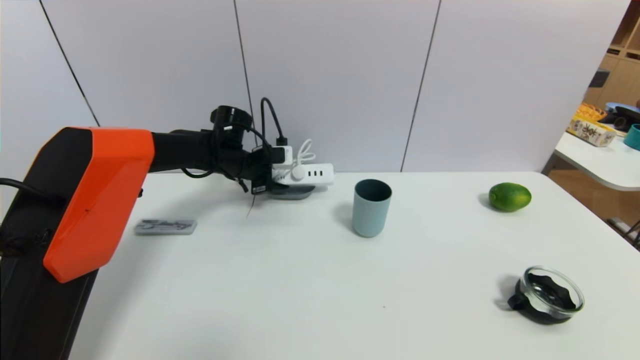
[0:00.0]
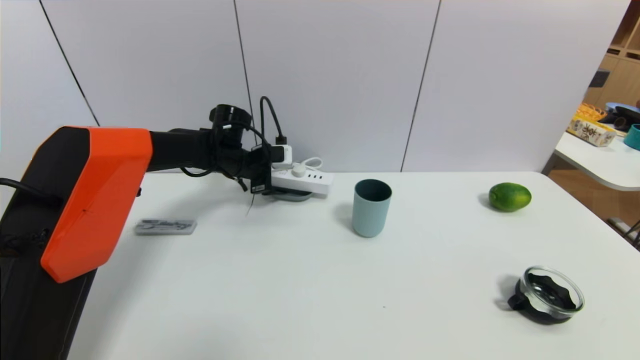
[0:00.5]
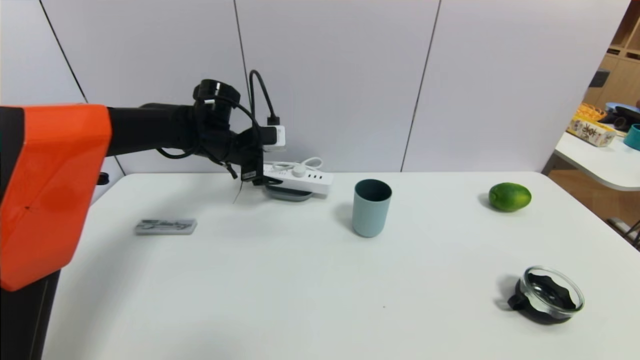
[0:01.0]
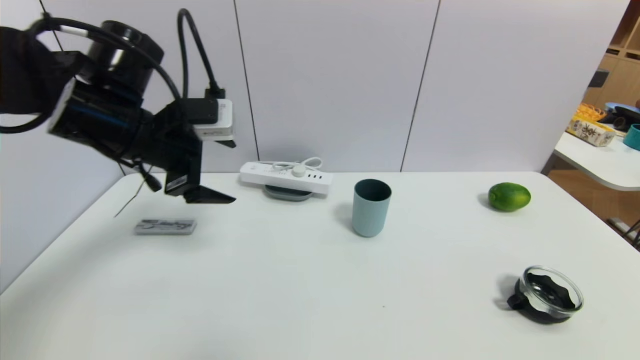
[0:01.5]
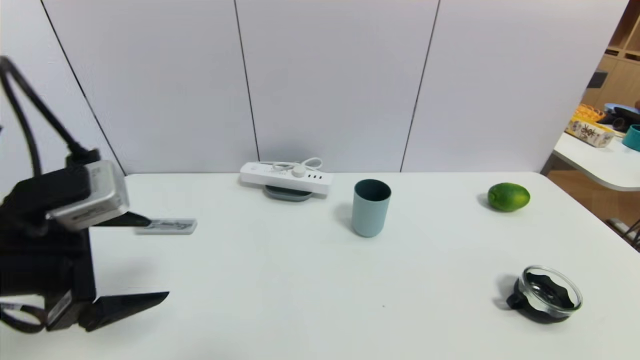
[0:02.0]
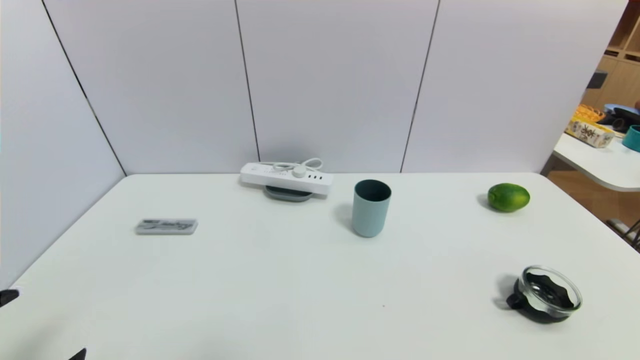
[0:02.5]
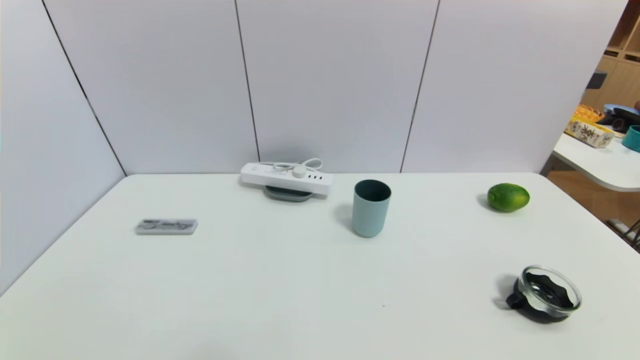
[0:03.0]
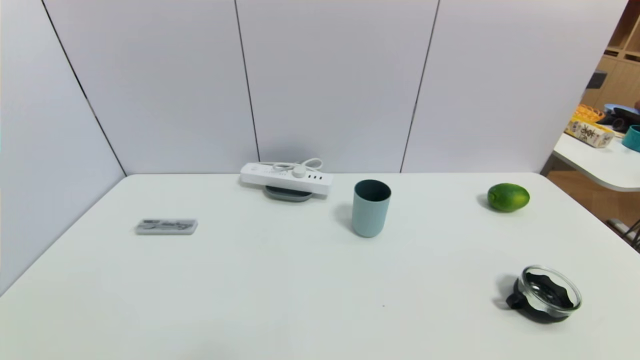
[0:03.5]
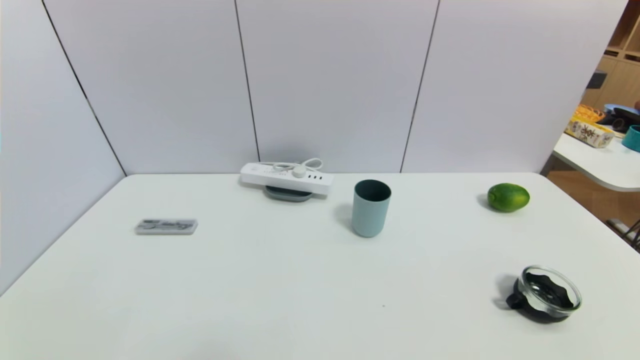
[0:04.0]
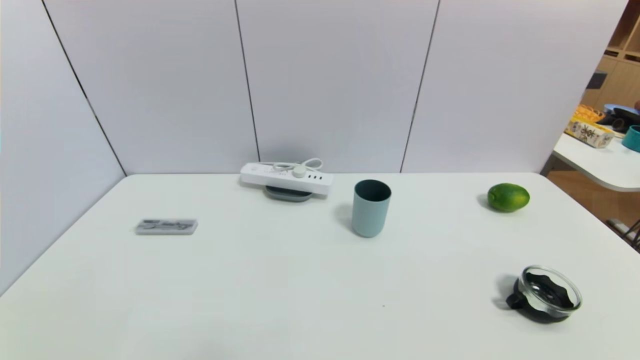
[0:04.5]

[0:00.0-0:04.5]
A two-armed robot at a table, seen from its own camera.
Task of the whole recording: use a gripper to pick the target object and place on the dish.
0:00.0 to 0:02.0: The left gripper travels backward by some 30 cm, and opens.
0:02.0 to 0:04.5: The left gripper heads downward and backward, covering about 25 cm.

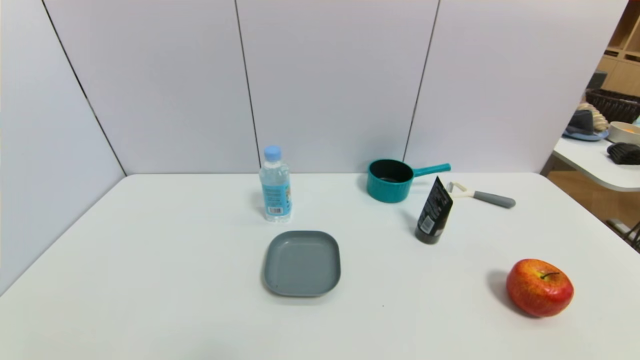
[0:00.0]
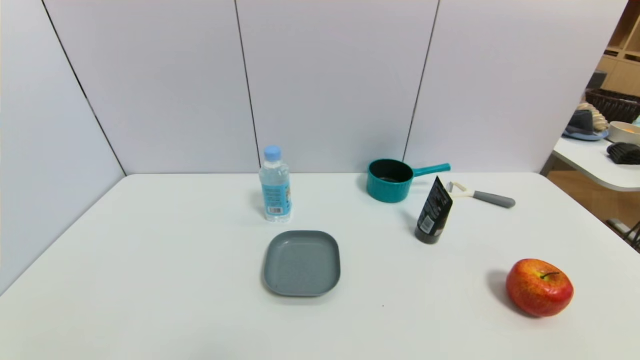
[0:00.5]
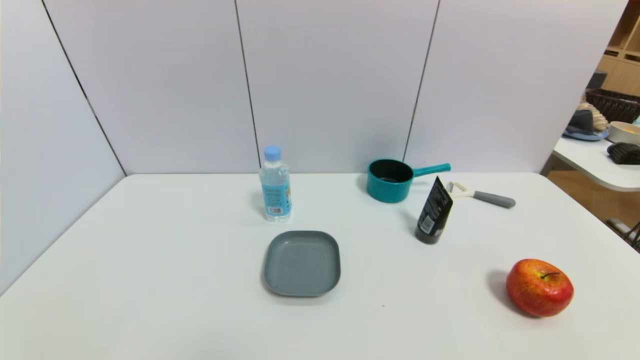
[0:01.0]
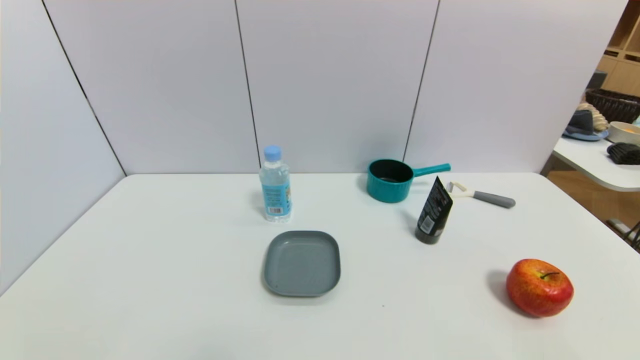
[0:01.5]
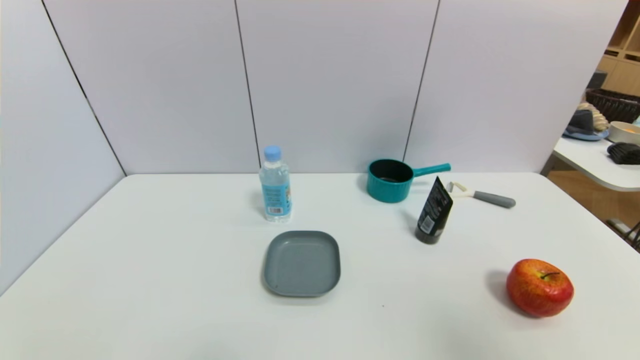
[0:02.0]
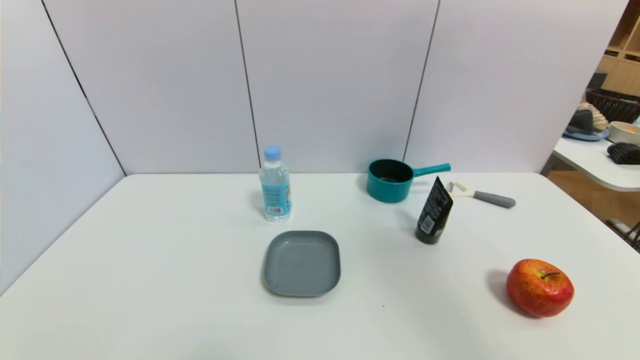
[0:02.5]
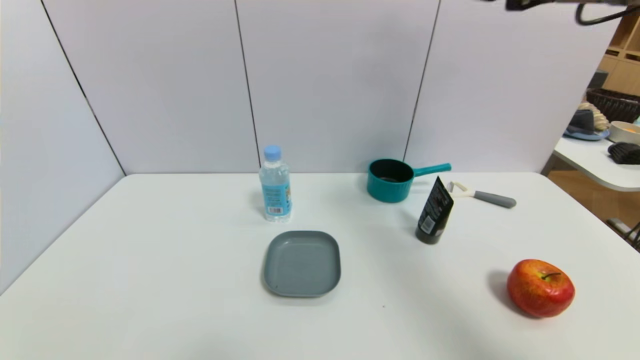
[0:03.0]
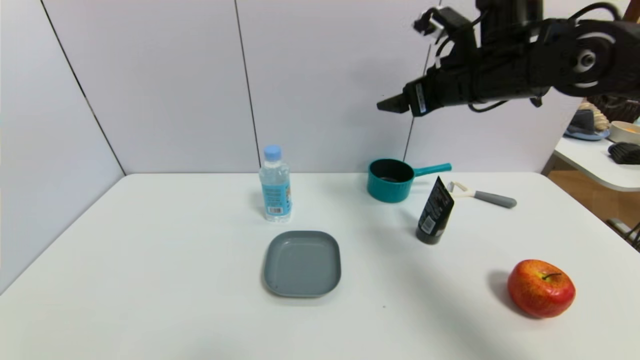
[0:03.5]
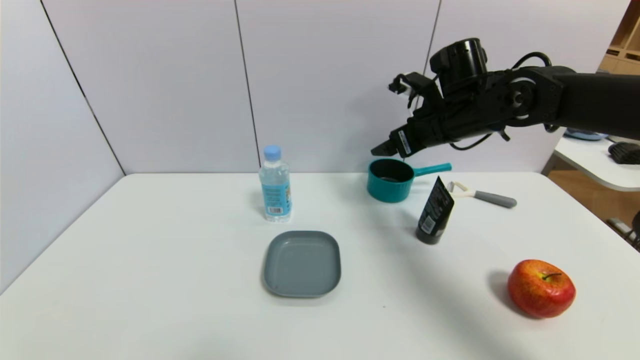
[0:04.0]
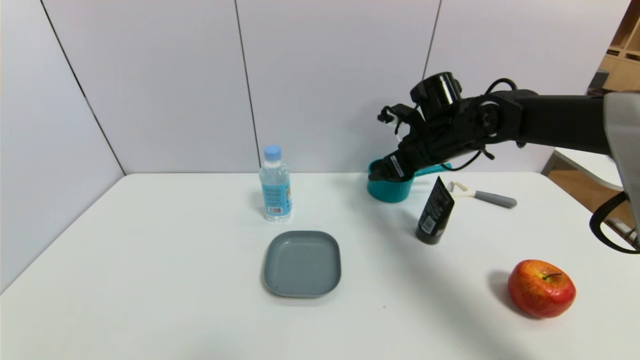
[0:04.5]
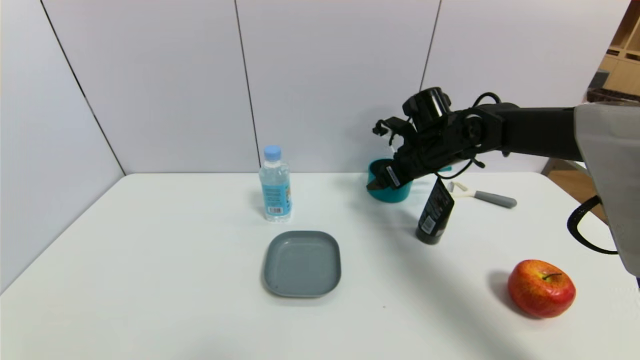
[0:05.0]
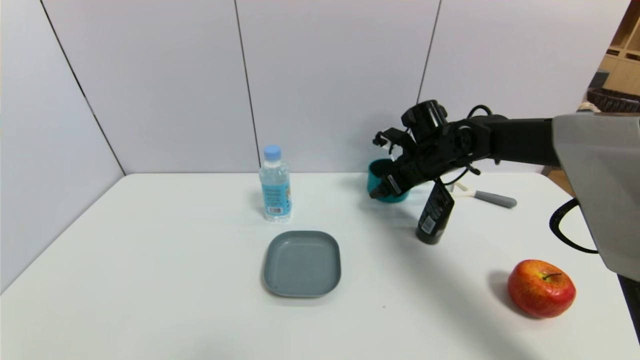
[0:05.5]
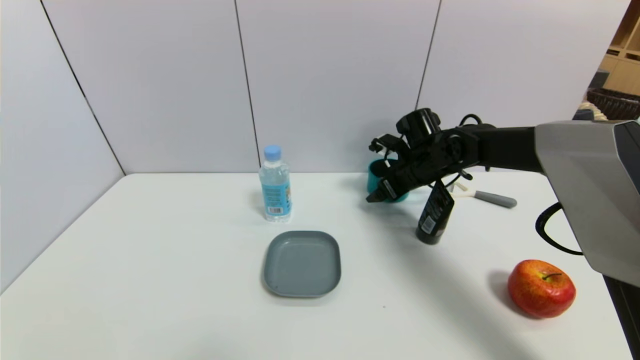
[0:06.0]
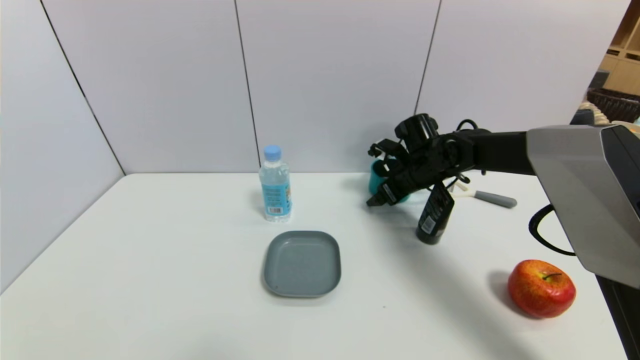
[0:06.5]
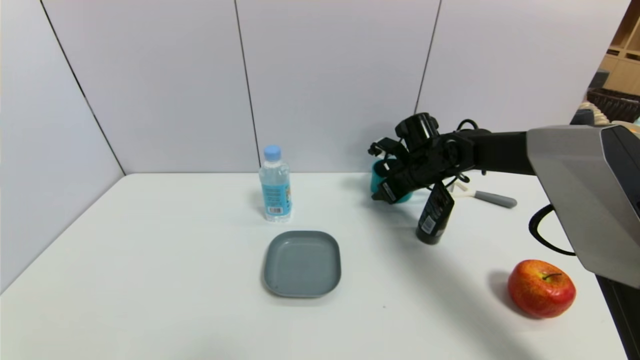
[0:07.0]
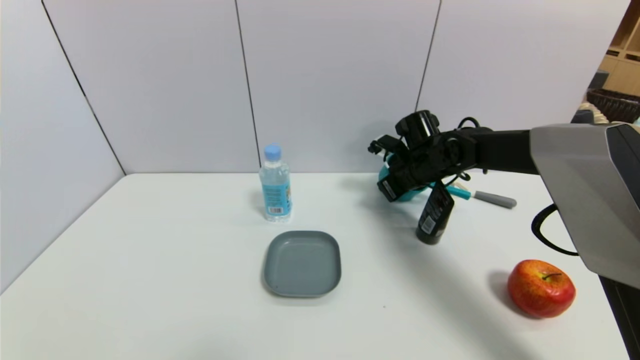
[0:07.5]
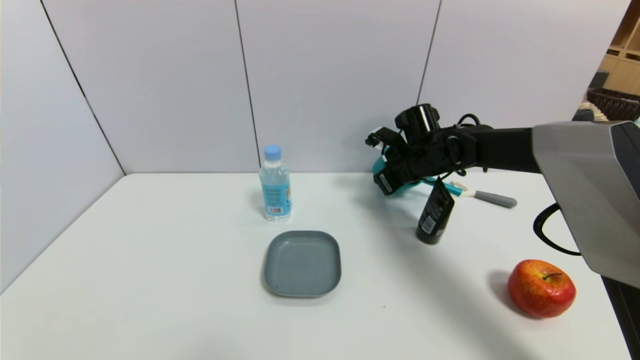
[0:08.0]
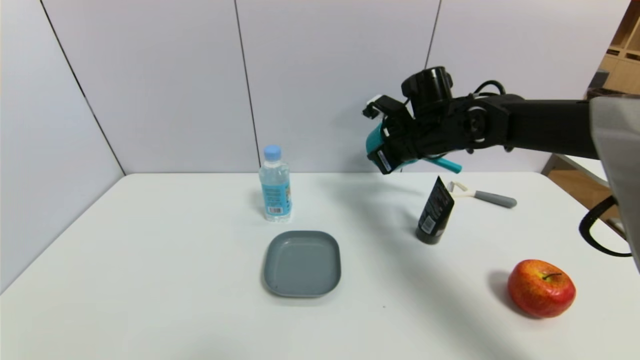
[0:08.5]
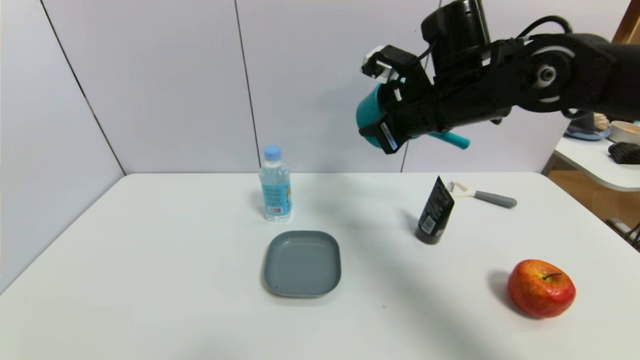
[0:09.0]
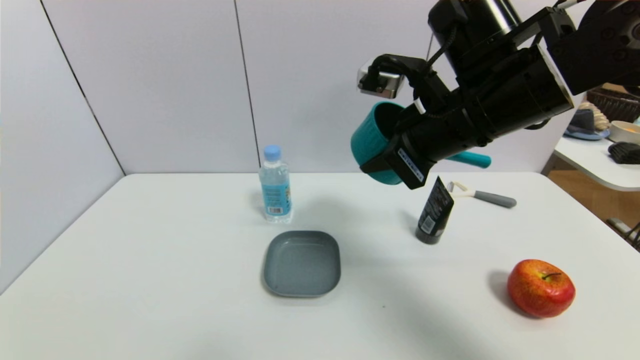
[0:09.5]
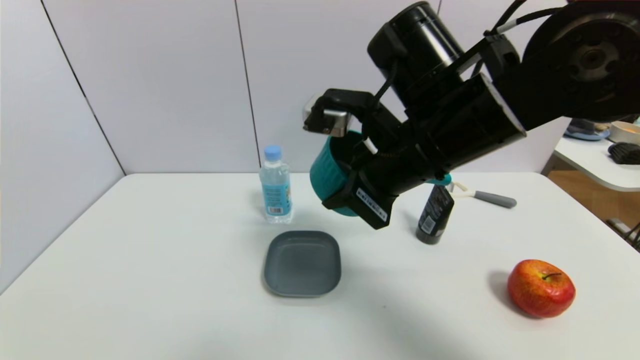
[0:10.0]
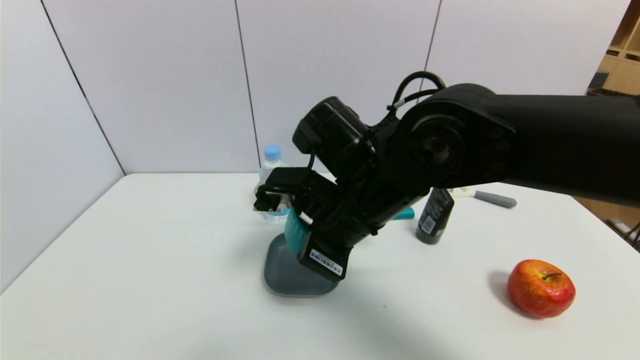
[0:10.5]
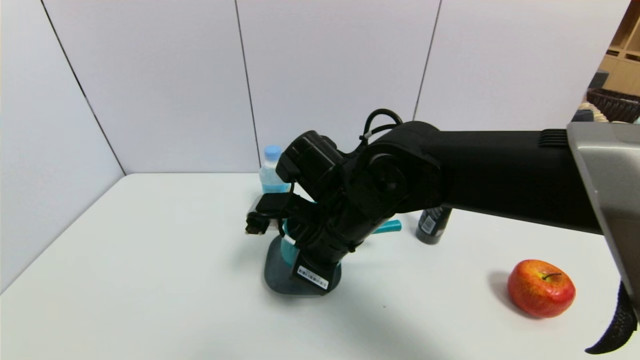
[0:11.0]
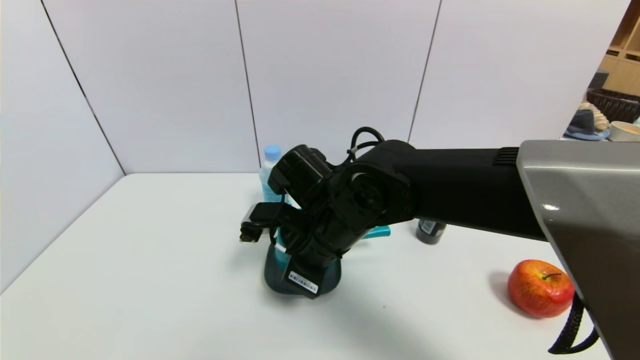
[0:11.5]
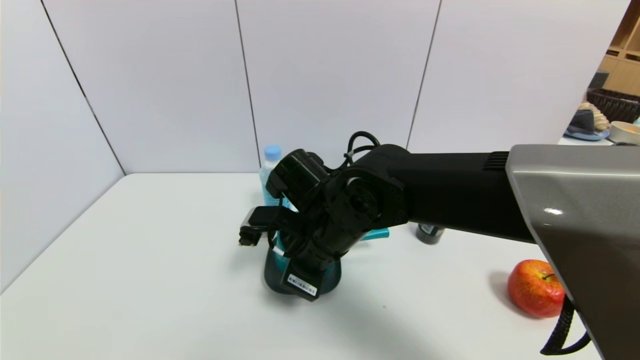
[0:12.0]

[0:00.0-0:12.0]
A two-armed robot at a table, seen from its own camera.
Task of the whole recording: use a gripper to pick the target object and place on the dish.
Step, 0:00.0 to 0:07.0: Grasp the blue pot with the right gripper.
0:00.0 to 0:02.0: The right gripper moves upward, about 30 cm.
0:02.0 to 0:04.0: The right gripper is displaced forward and to the left by some 40 cm.
0:04.0 to 0:06.0: The right gripper goes some 10 cm downward.
0:06.0 to 0:08.0: The right gripper closes up.
0:08.0 to 0:10.0: The right gripper heads backward, upward and to the left, covering some 25 cm.
0:10.0 to 0:12.0: The right gripper goes about 15 cm downward and to the left.

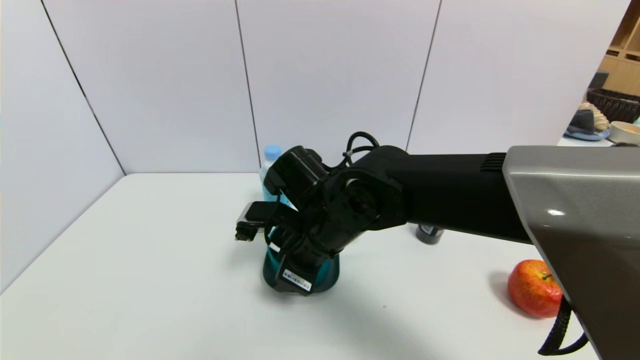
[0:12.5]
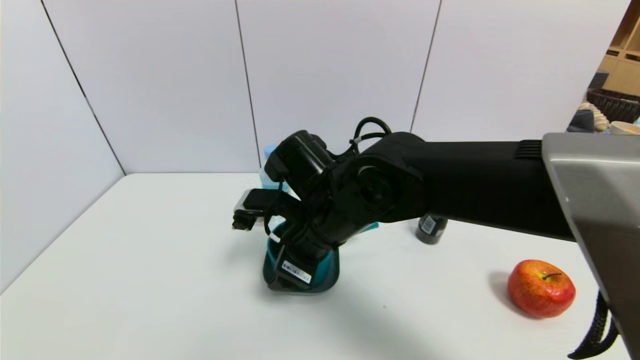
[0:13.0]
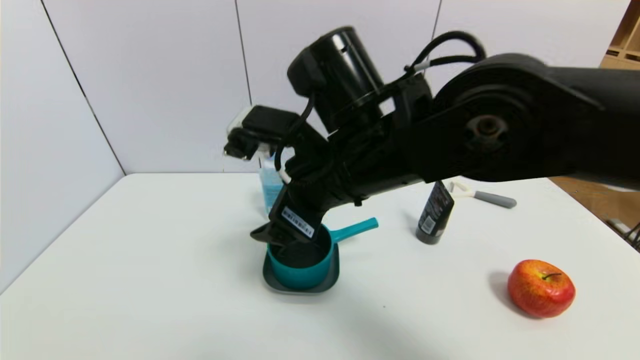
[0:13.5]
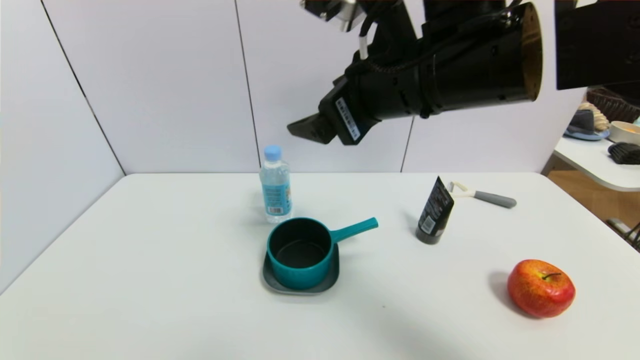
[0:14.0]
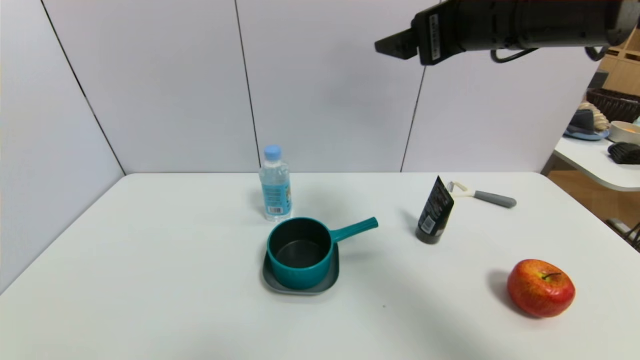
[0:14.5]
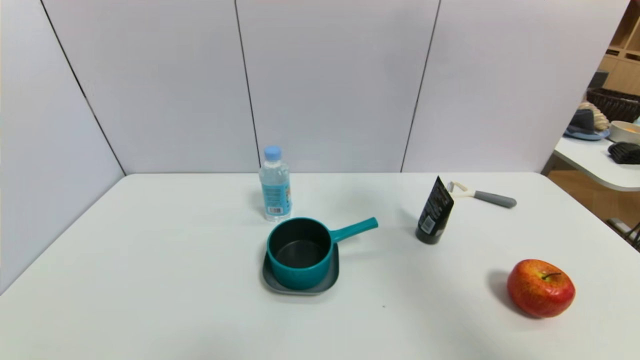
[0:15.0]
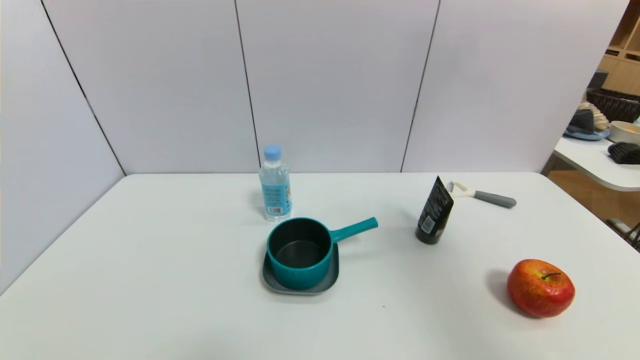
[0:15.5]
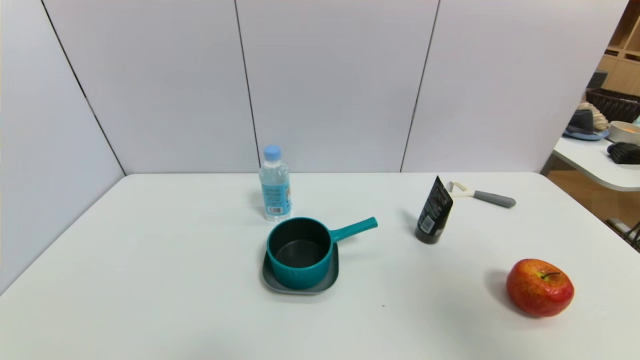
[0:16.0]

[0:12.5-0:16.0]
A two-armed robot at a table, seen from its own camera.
Task of the whole recording: use a gripper to pick the target object and place on the dish.
0:12.5 to 0:14.5: The right gripper moves upward and to the right, some 30 cm, and opens its fingers.
0:14.5 to 0:16.0: The right gripper heads backward and to the right, covering about 25 cm.
